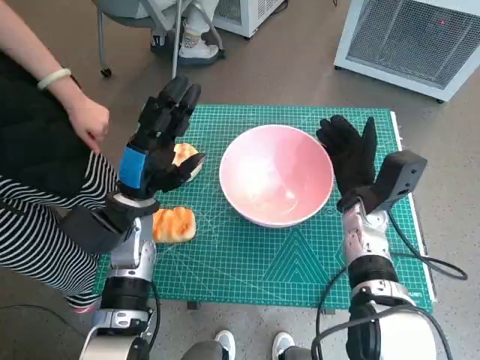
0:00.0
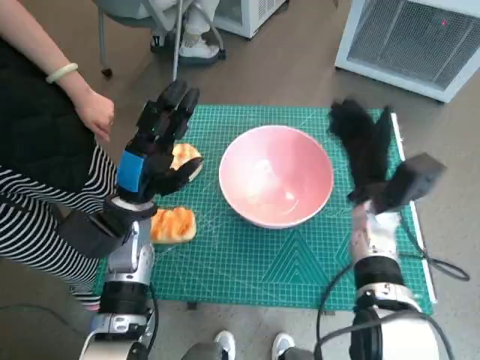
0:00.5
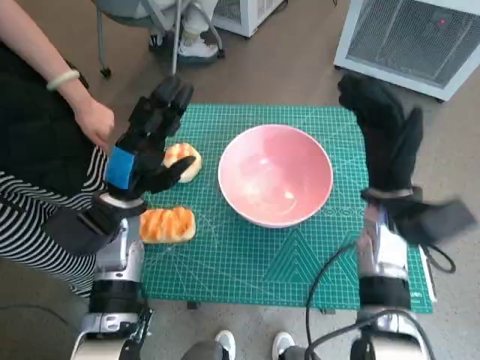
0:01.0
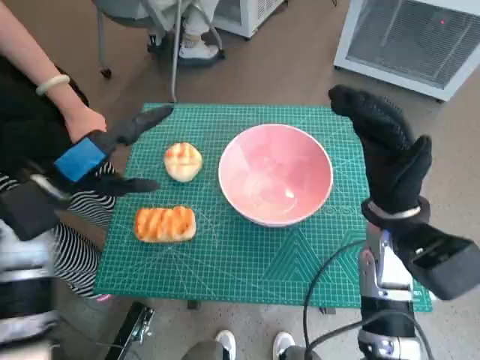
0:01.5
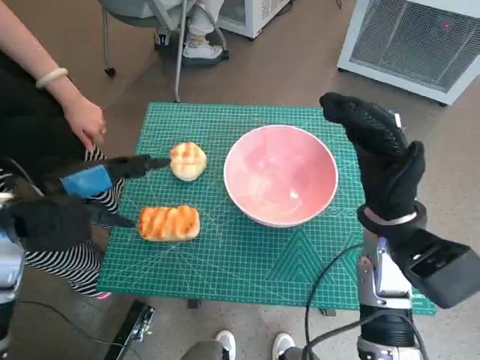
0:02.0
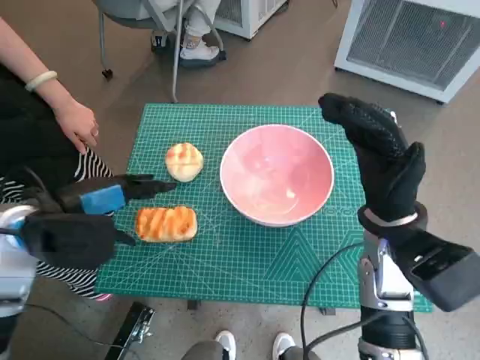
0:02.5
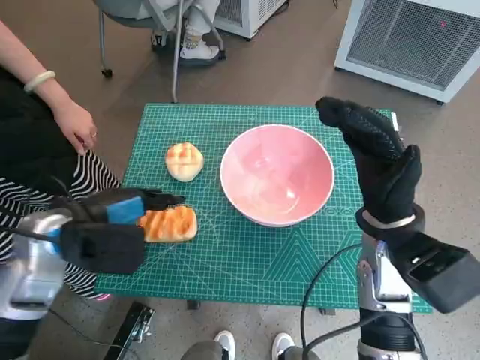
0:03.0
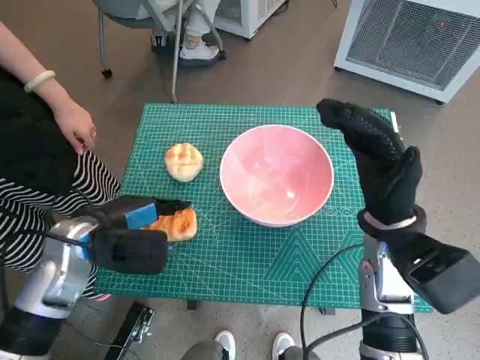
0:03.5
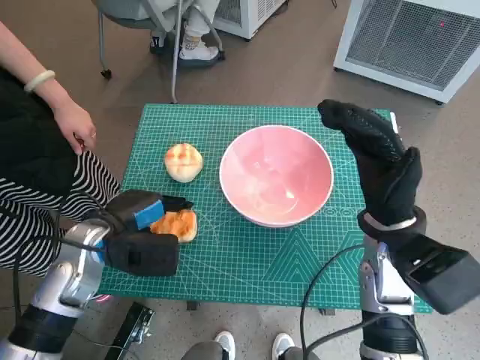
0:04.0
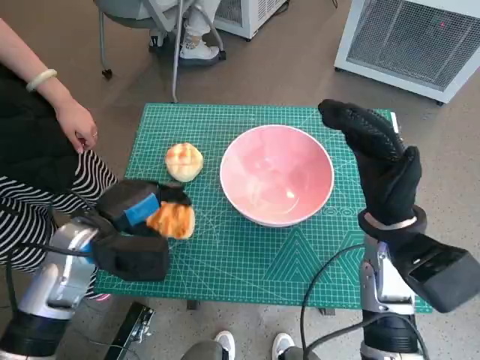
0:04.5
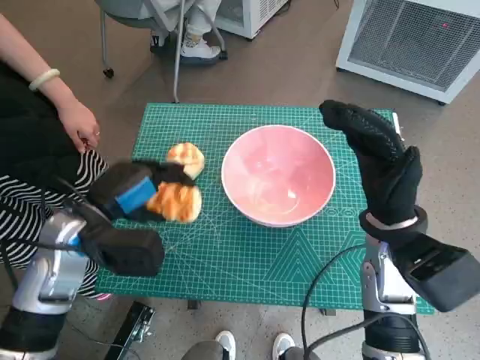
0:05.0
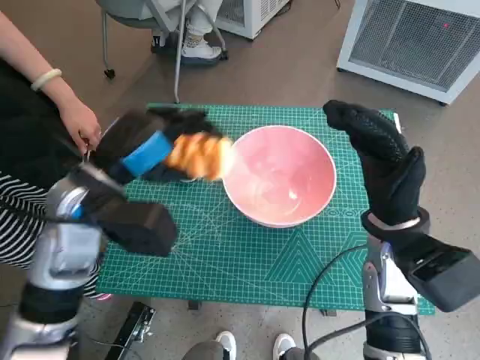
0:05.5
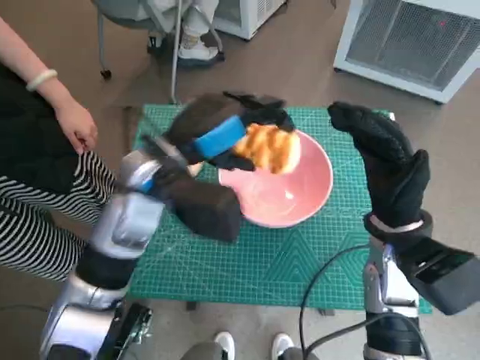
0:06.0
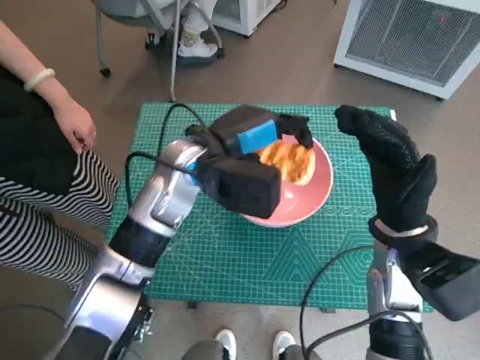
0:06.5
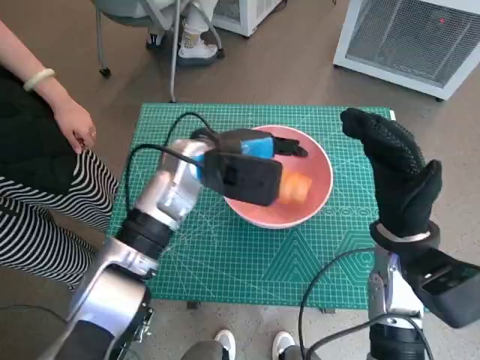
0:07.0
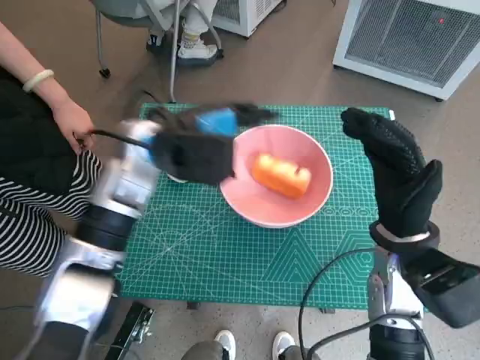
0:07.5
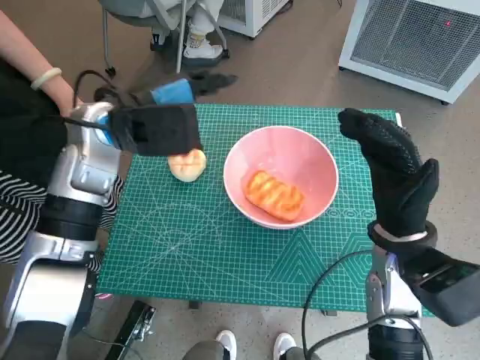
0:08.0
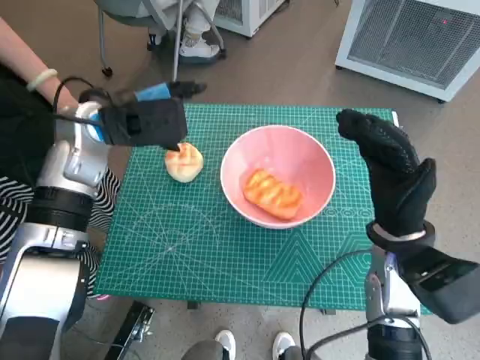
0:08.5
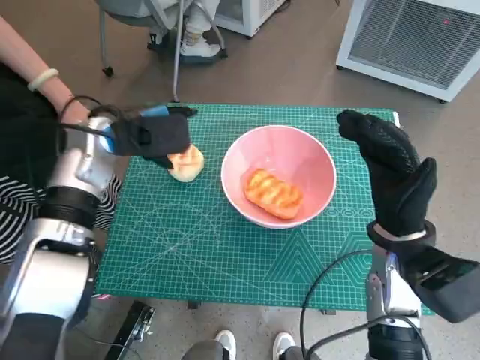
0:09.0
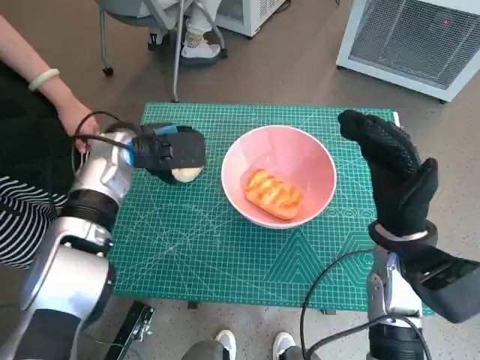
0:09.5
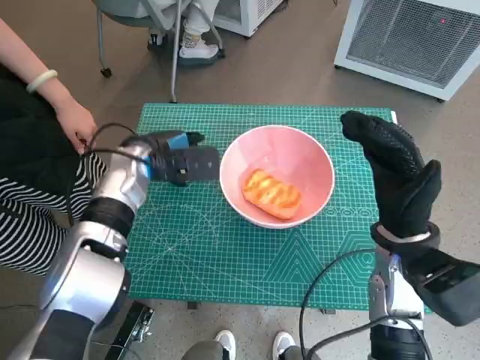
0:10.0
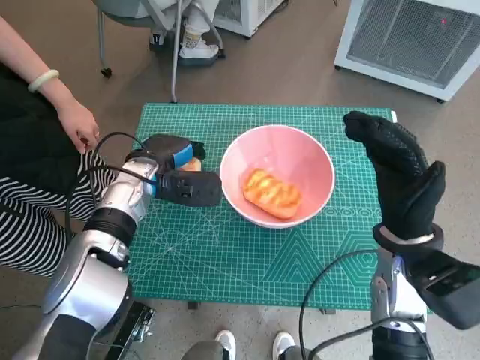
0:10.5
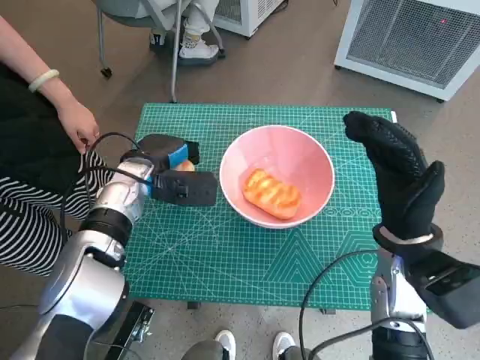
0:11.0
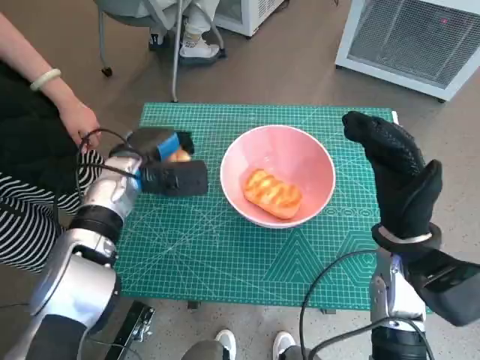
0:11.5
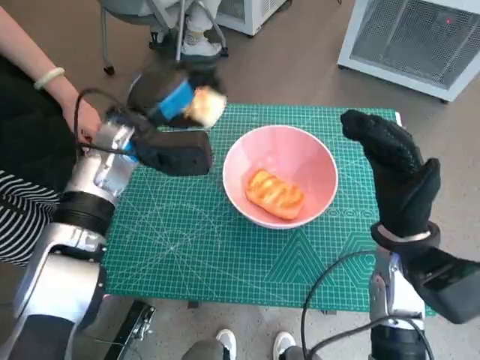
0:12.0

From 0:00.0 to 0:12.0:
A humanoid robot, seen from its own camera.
Task of the whole recording: Push the bowl into the center of the table and put the bread into the bowl.
Step, from 0:00.5 to 0:04.0: Grasp the long bread with left hand.
Step, from 0:04.5 to 0:07.5: Place the long bread in pink bowl with left hand.
Step, from 0:08.0 to 0:10.0: Grasp the round bread with left hand.
From 0:00.0 to 0:02.0: The left hand is displaced upward and to the left by about 15 cm. The right hand goes about 10 cm upward and backward.
From 0:02.0 to 0:04.0: The left hand travels downward and to the right by about 10 cm.
From 0:04.0 to 0:06.0: The left hand is displaced upward and to the right by approximately 15 cm.
From 0:06.0 to 0:08.0: The left hand heads forward and to the left, covering about 10 cm.
From 0:08.0 to 0:10.0: The left hand shifts some 10 cm downward.

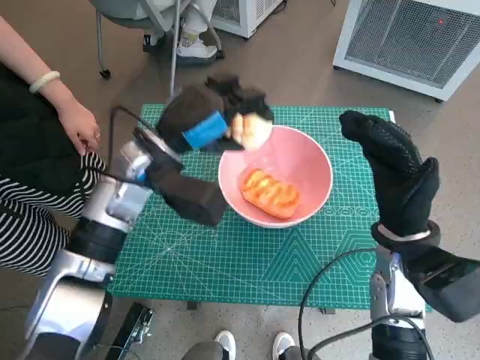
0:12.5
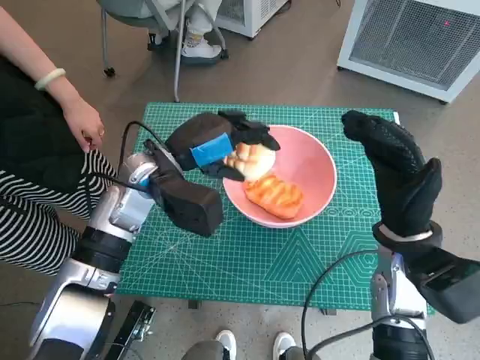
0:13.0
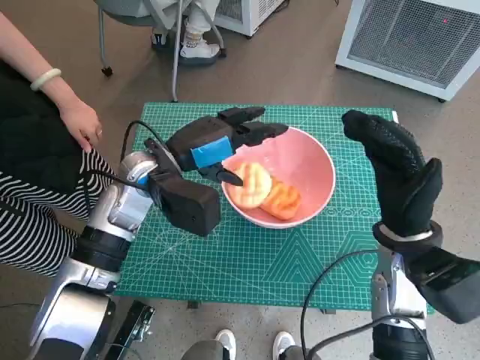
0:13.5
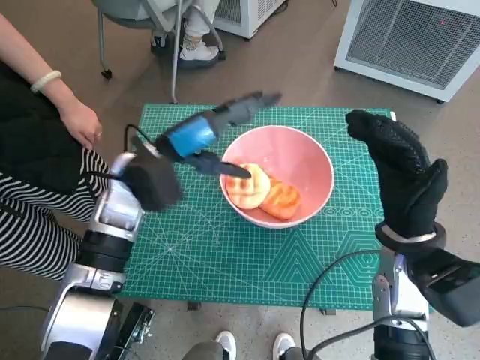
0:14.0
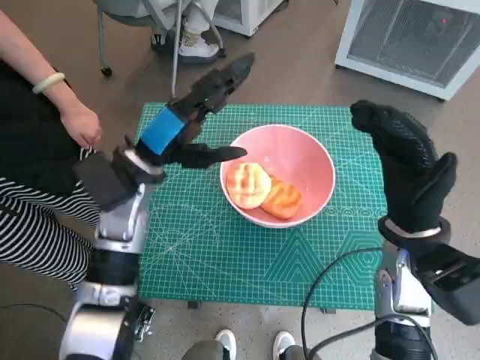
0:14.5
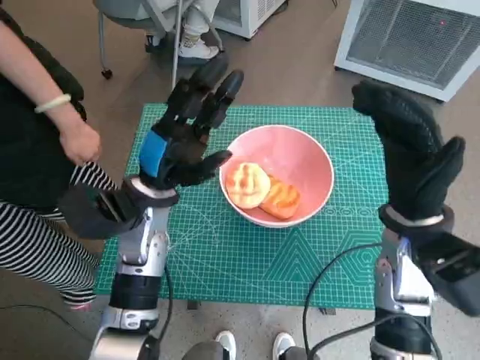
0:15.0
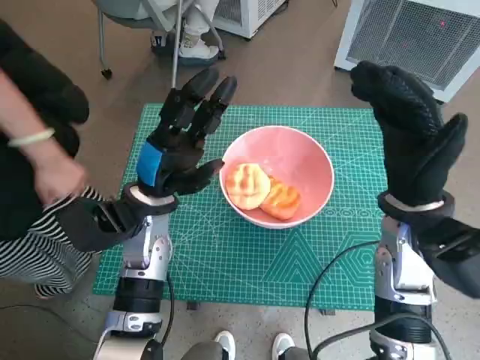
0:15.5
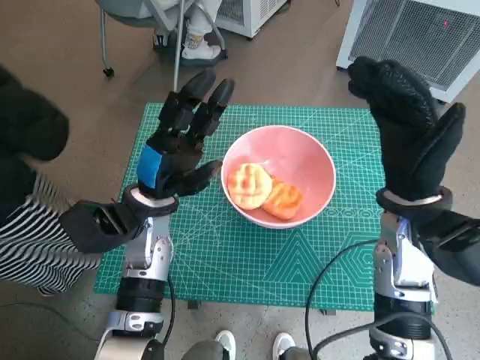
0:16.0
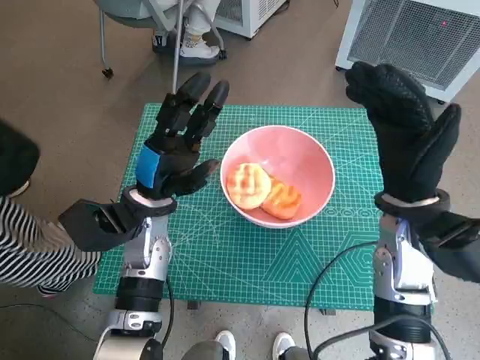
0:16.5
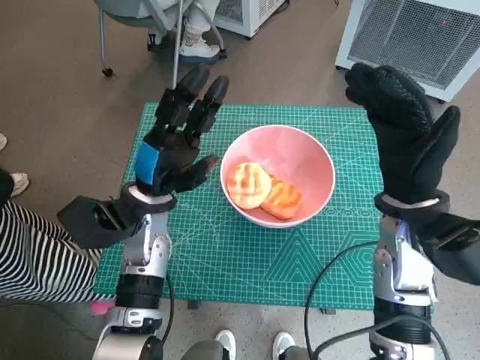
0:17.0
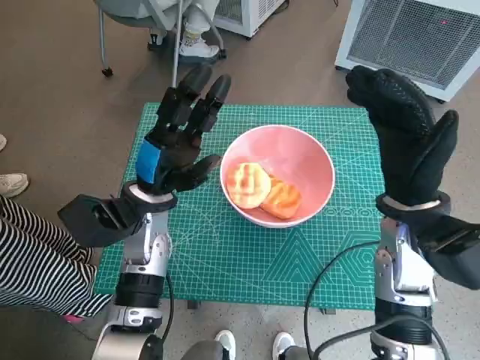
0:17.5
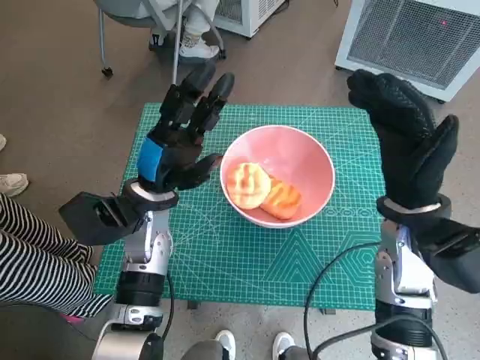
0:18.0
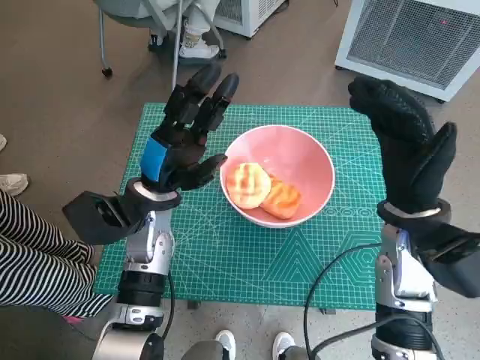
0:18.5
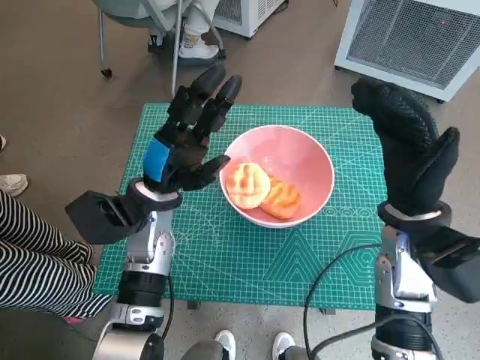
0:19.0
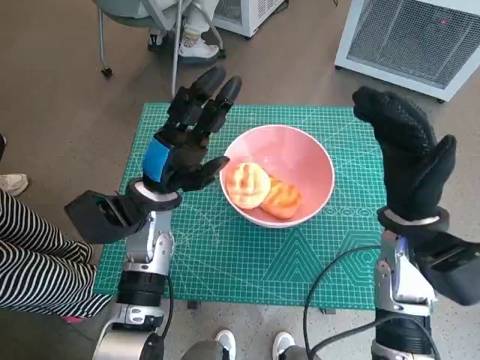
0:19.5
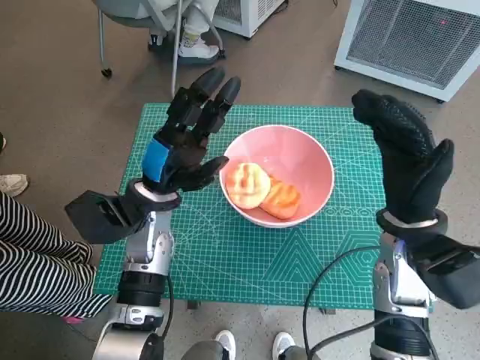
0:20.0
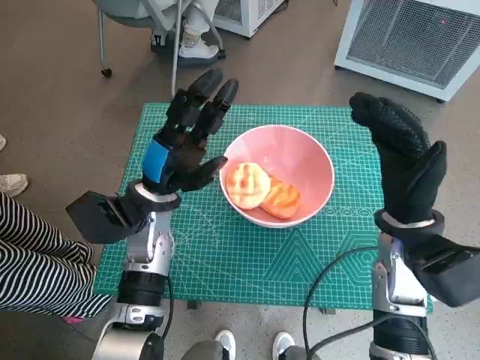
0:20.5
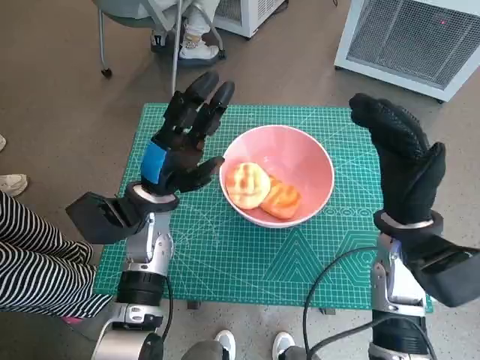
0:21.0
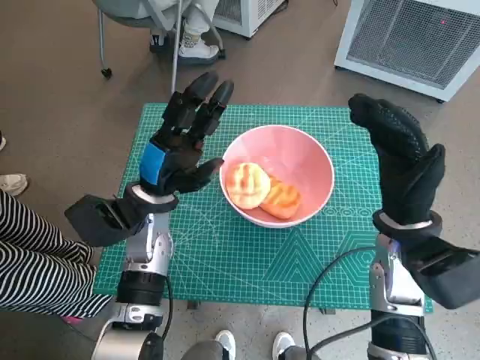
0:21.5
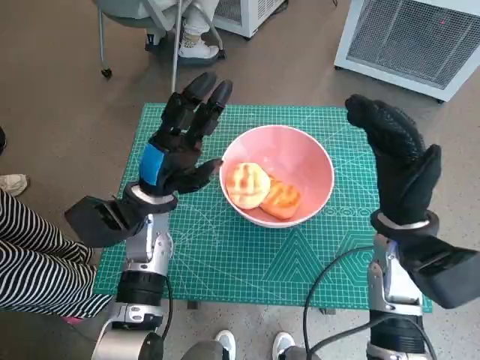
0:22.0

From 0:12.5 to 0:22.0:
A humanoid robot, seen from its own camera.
Task of the whole recording: Push the bowl into the center of the table and put the bread into the bowl.
From 0:14.5 to 0:16.5: The left hand moves downward, roughly 5 cm.
From 0:16.5 to 0:18.0: Neither hand changes place.
From 0:18.0 to 0:20.0: The hands make only small movements.
From 0:20.0 to 0:22.0: Both hands stay put.

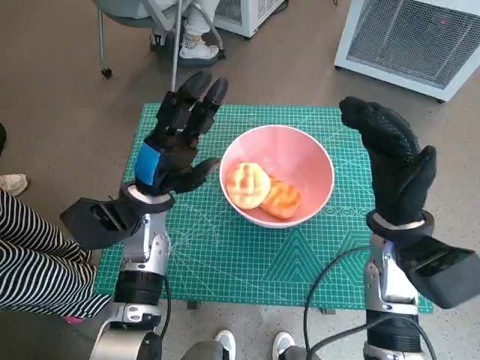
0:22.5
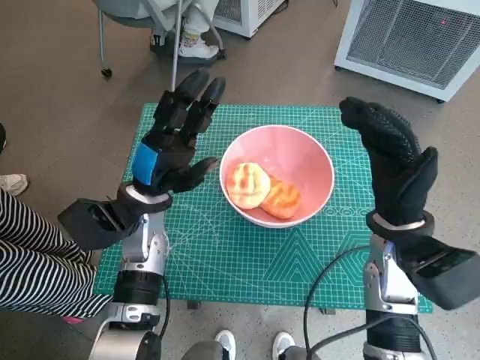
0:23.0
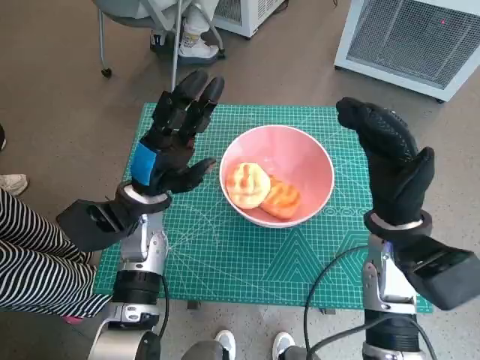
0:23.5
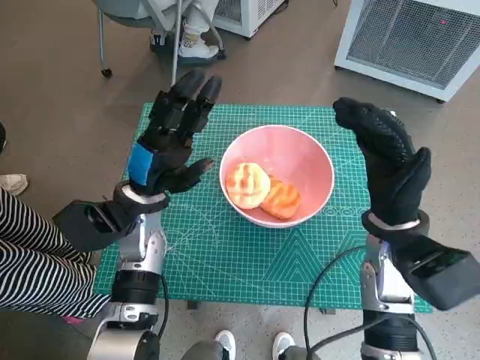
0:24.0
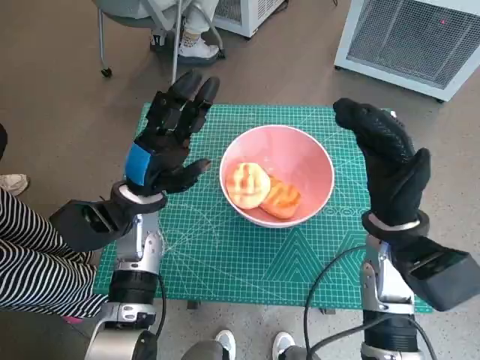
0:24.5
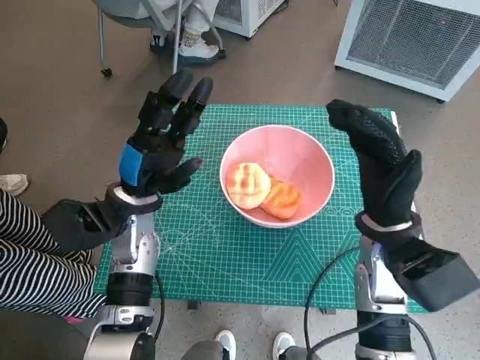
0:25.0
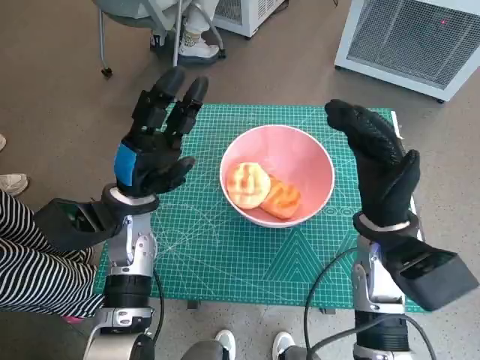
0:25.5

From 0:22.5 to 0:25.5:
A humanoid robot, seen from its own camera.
Task of the whole recording: Push the bowl into the center of the table and put the bread into the bowl.
From 0:22.5 to 0:24.0: Both hands stay put.
From 0:24.0 to 0:25.5: Both hands stay put.
